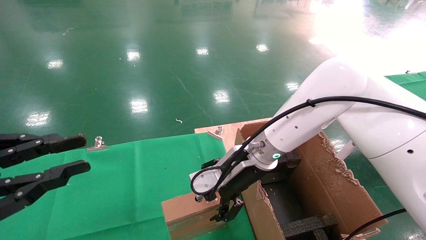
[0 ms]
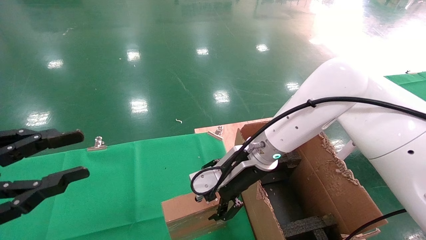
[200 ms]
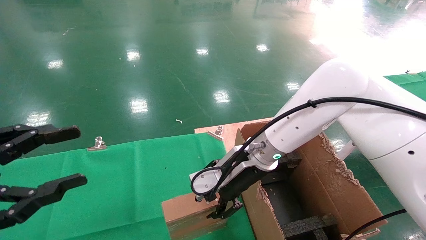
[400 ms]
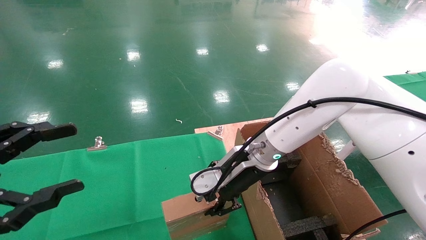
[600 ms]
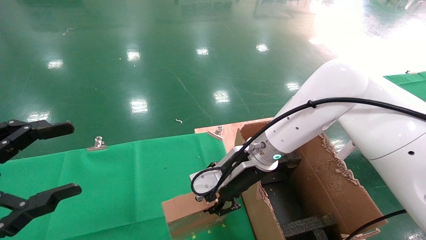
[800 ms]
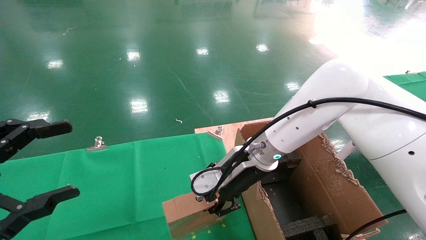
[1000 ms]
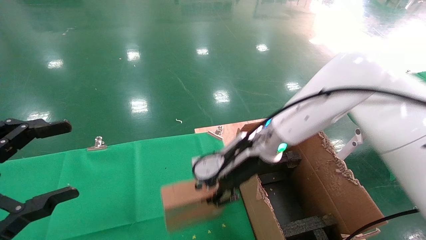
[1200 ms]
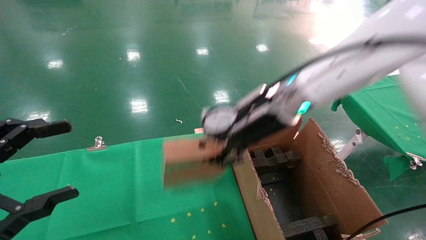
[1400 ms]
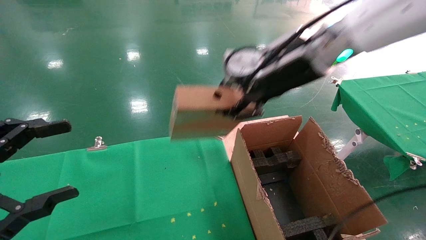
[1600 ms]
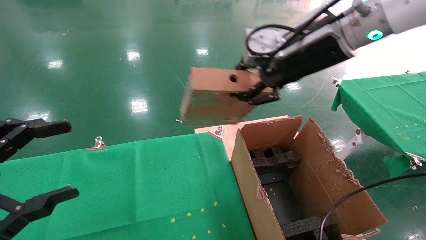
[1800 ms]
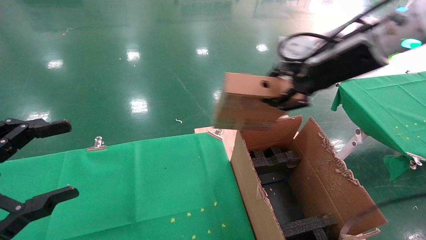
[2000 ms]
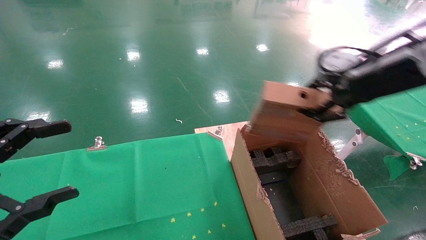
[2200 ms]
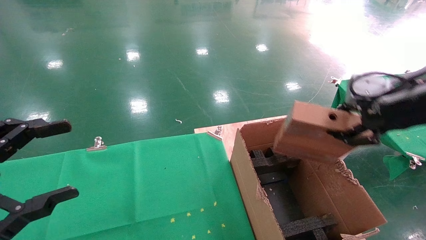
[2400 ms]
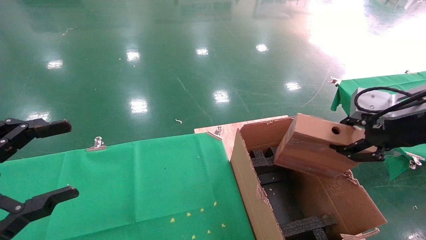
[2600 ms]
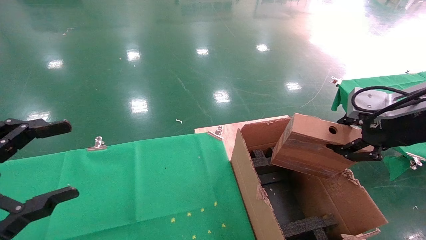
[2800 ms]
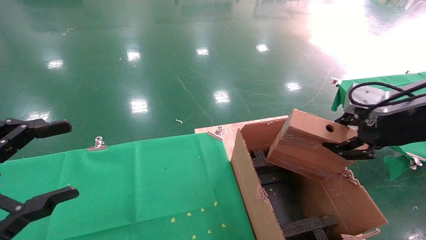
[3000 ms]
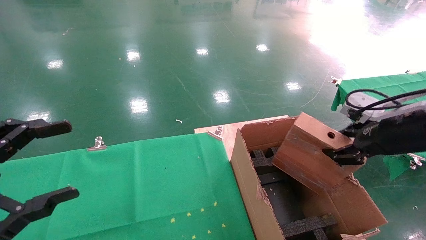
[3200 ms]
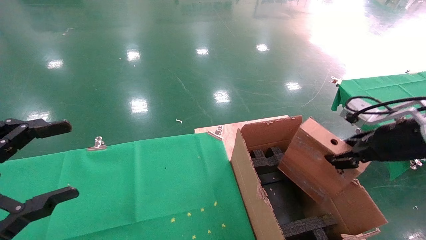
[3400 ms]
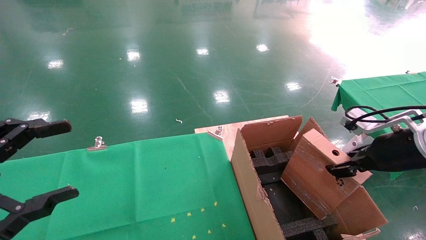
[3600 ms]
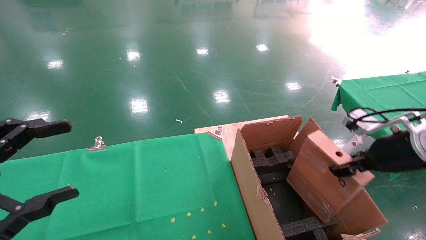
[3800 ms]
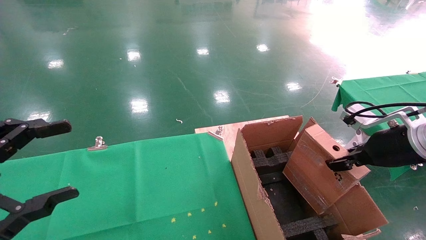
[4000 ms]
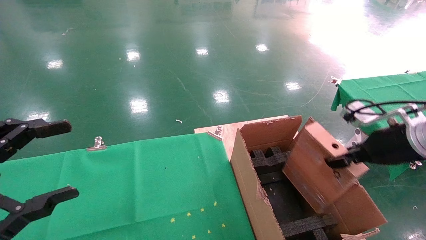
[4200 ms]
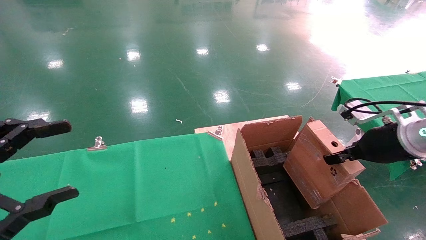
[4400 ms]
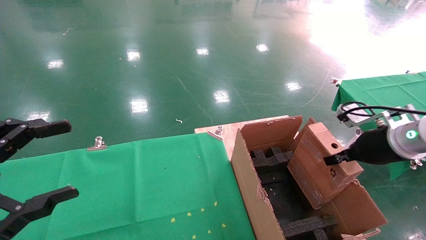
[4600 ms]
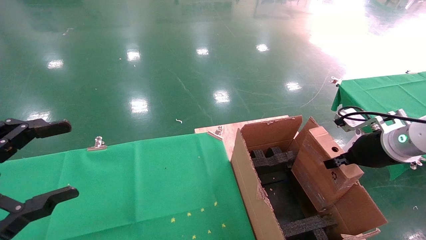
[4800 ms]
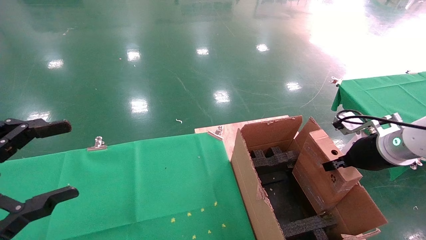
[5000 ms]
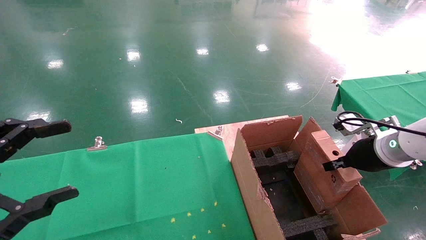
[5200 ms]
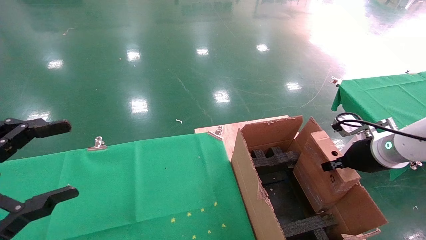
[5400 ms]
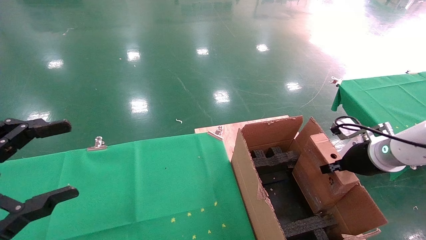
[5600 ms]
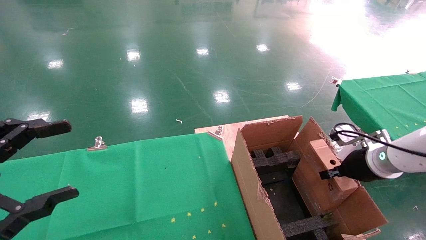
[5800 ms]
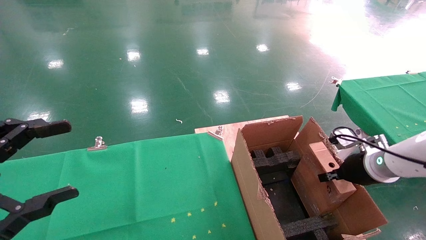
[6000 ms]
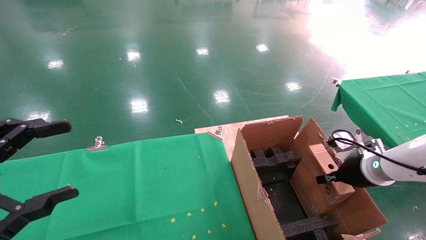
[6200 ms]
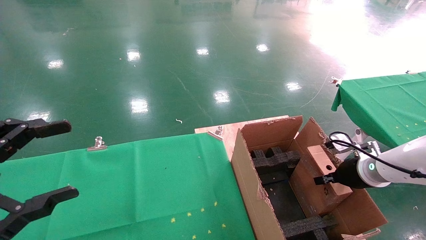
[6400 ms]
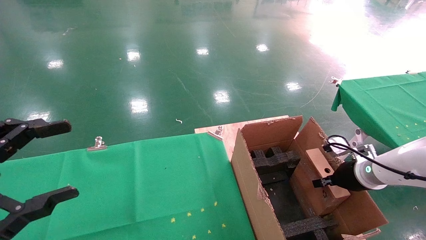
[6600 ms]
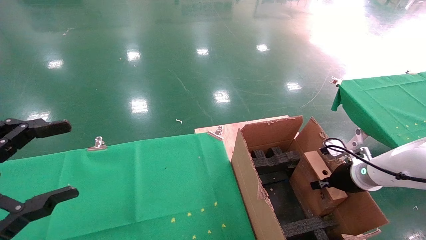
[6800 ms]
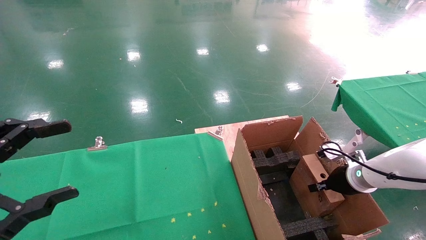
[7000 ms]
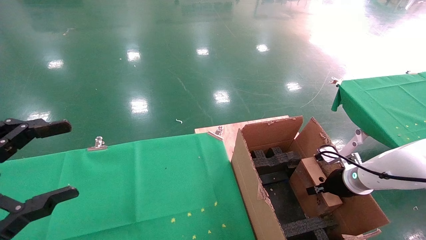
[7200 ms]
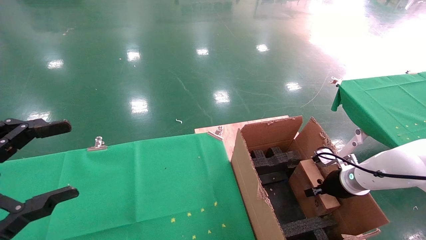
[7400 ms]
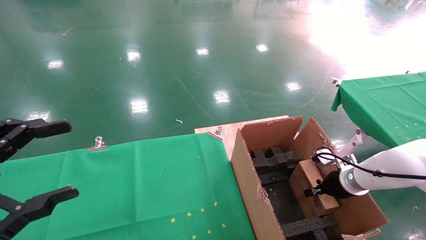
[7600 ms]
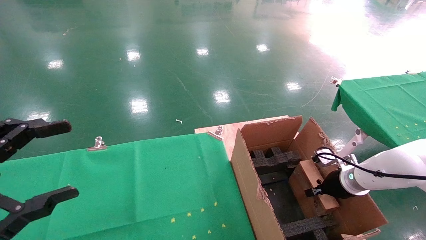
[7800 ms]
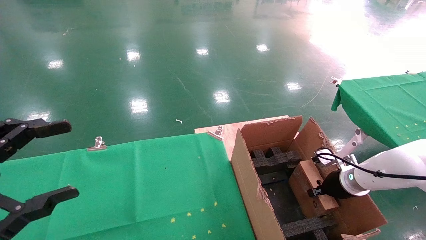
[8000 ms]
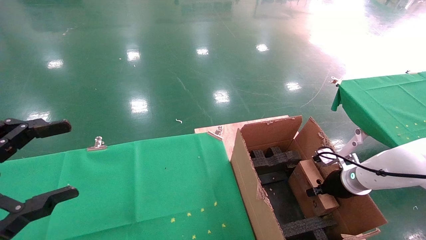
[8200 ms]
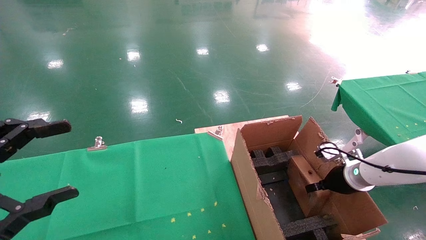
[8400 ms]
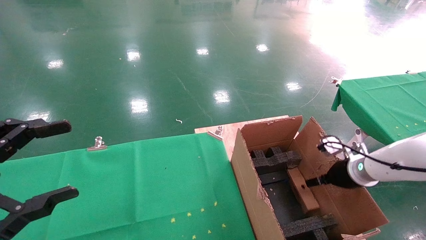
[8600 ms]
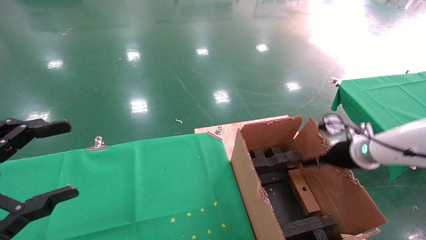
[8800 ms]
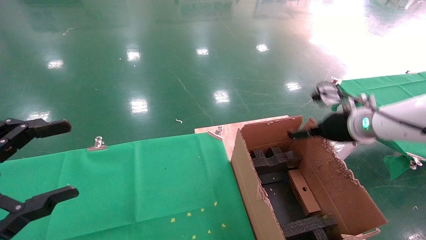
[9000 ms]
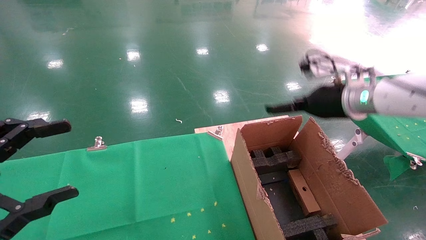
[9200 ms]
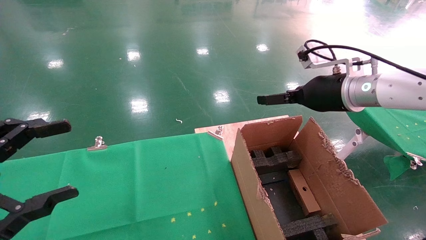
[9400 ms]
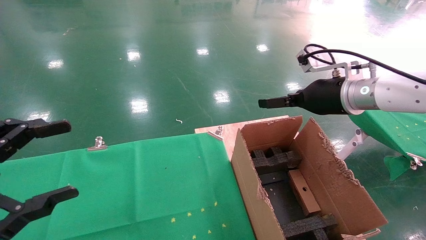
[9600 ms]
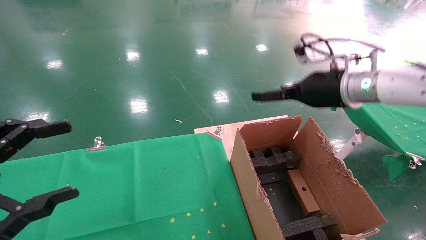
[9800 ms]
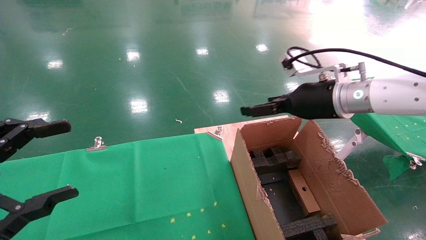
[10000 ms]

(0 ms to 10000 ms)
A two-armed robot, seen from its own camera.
Task of the whole recording: using a robotic arm to pick up a cardboard box and palace it the carton.
Step, 1000 ms - 9000 ms: Place the mouse and the power cord paper box into the container.
0 ms - 1400 ms: The right gripper is displaced upward by some 10 cm, and closes up. Meanwhile the left gripper opens up.
1400 ms - 2800 ms: The right gripper shifts approximately 25 cm to the right and backward.
2800 ms - 4200 ms: The right gripper is displaced downward and forward by about 10 cm.
4200 ms - 5800 ms: The right gripper is displaced downward by about 10 cm.
5800 ms - 7200 ms: The right gripper shifts roughly 10 cm downward.
7200 ms - 8600 ms: The right gripper moves upward, about 5 cm, and opens.
8600 ms - 10000 ms: The right gripper goes approximately 20 cm upward and to the left, and opens its fingers.

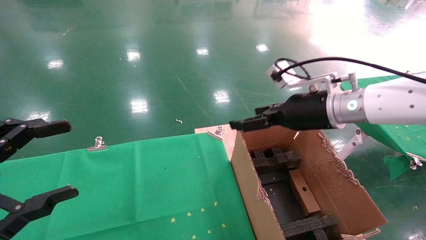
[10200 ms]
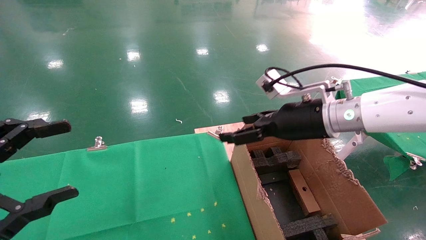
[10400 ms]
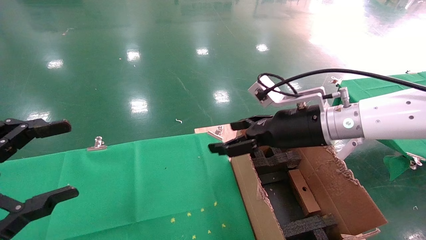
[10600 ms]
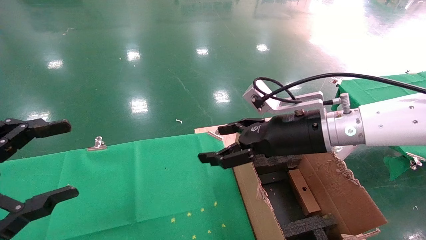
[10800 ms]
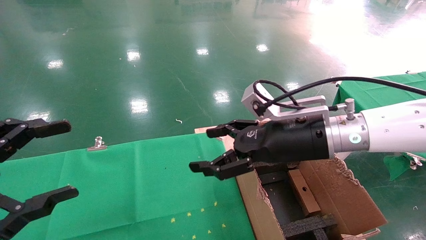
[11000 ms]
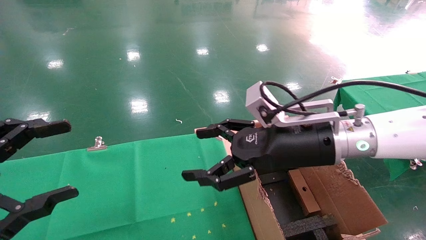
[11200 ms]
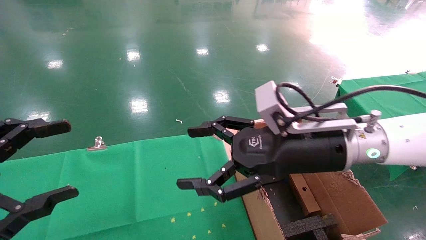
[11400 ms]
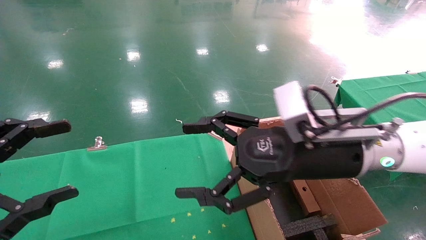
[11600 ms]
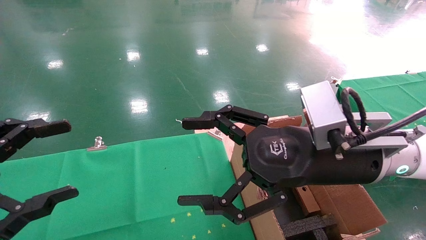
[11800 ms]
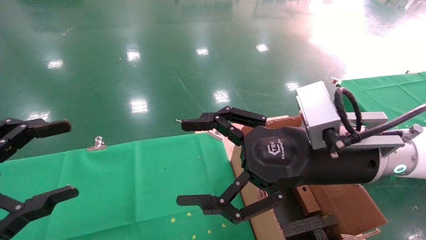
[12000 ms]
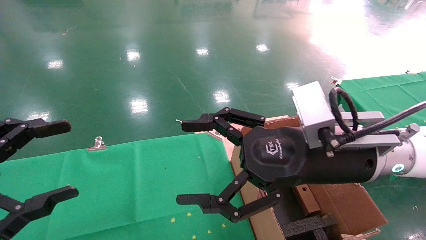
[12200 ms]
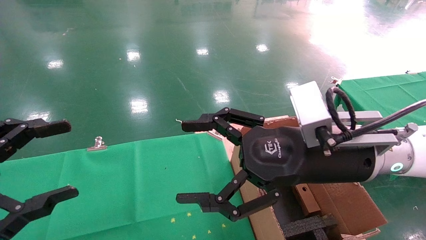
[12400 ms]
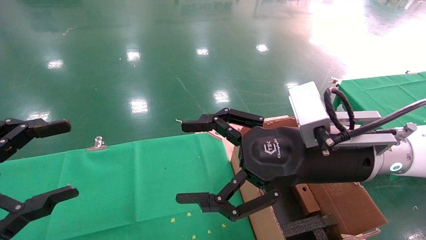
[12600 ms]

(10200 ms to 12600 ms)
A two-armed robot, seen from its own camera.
Task of the whole recording: using a robotic arm to pick up a cardboard box and palace it the carton.
10200 ms - 11400 ms: The right gripper goes roughly 10 cm backward and to the left.
11400 ms - 12600 ms: The grippers move only a little.
